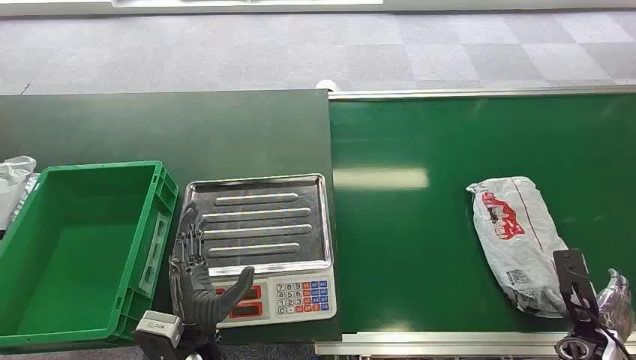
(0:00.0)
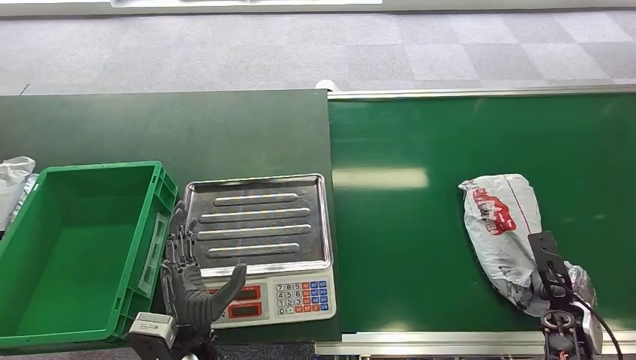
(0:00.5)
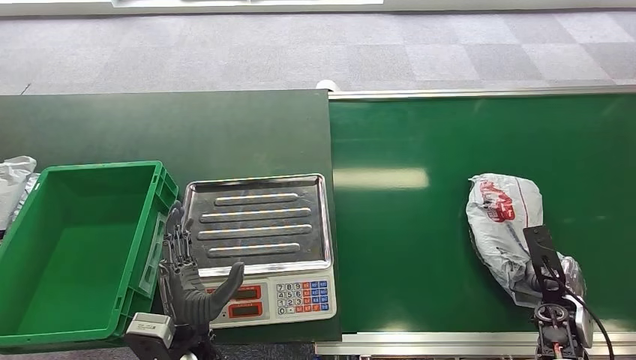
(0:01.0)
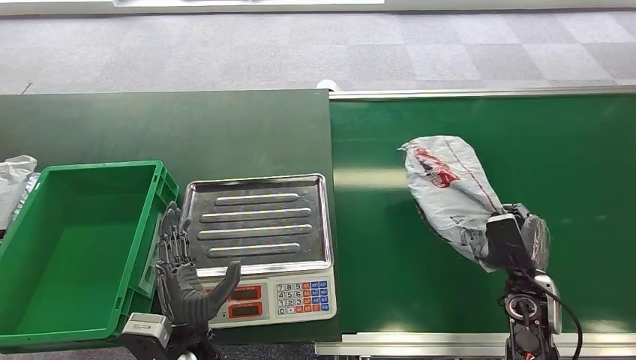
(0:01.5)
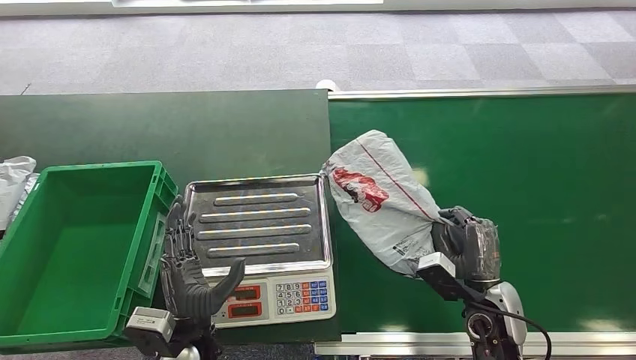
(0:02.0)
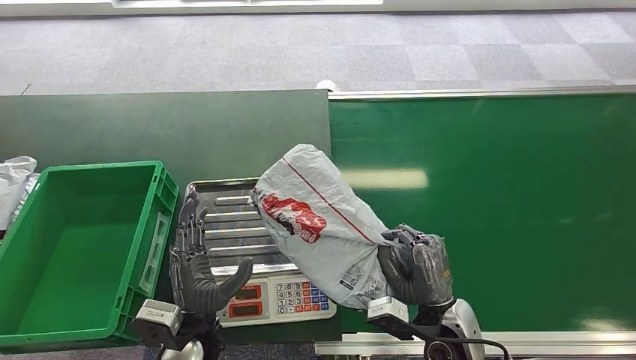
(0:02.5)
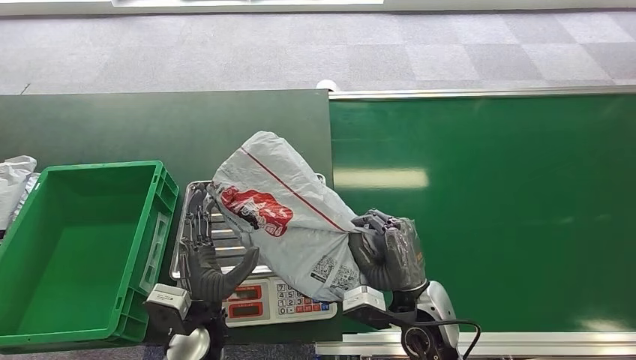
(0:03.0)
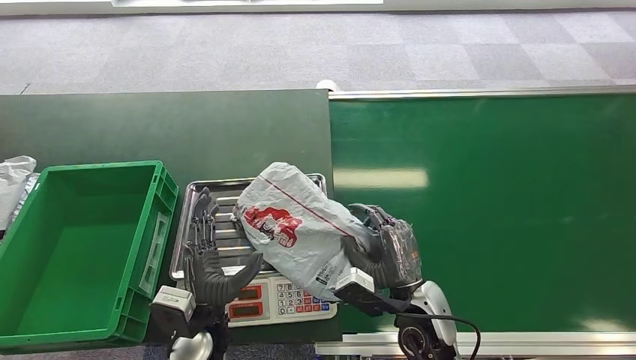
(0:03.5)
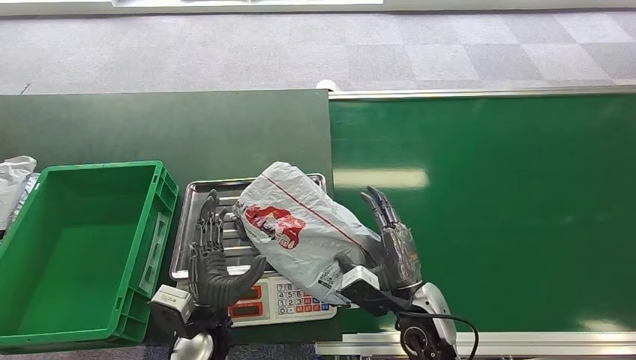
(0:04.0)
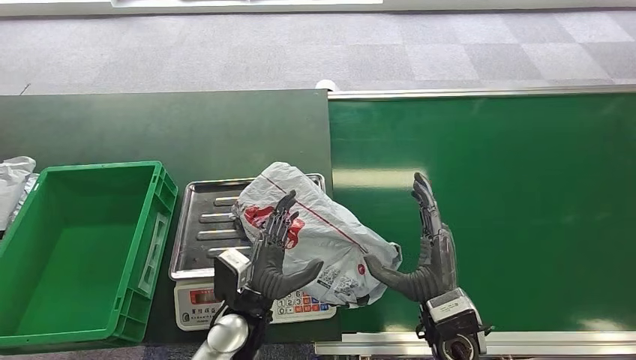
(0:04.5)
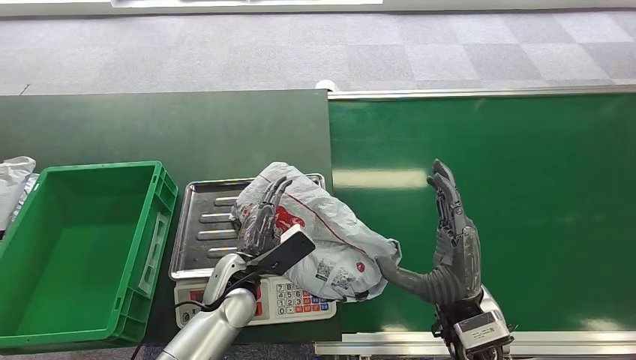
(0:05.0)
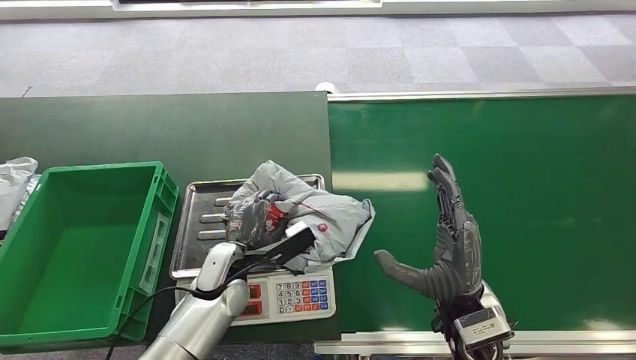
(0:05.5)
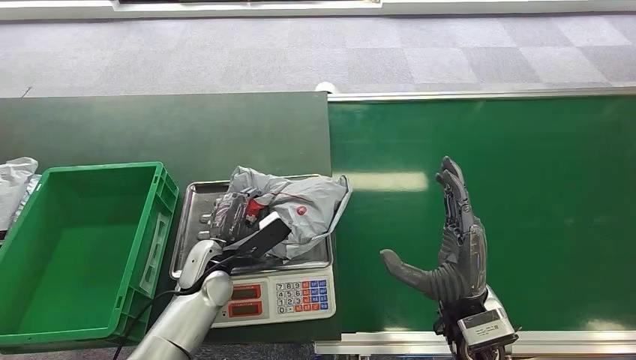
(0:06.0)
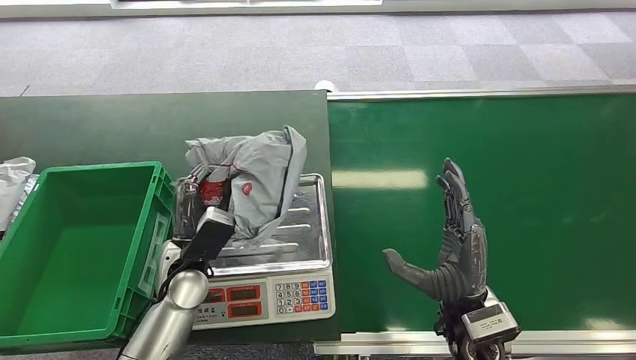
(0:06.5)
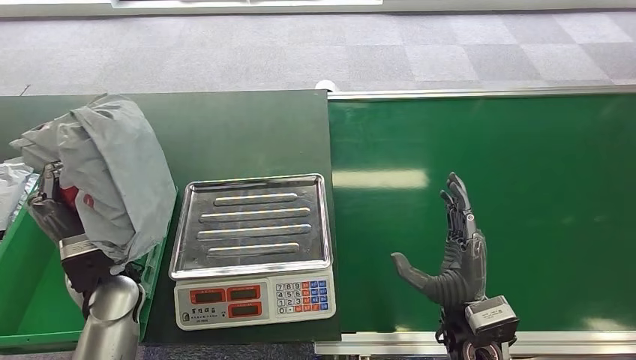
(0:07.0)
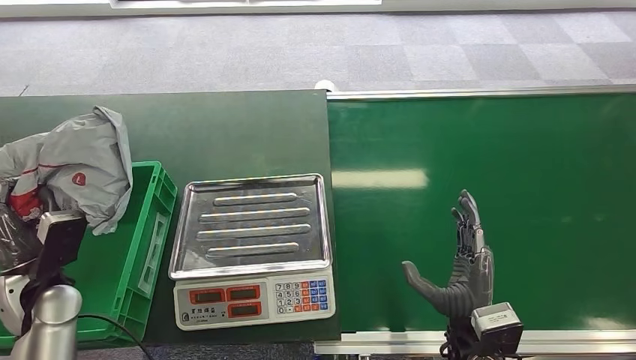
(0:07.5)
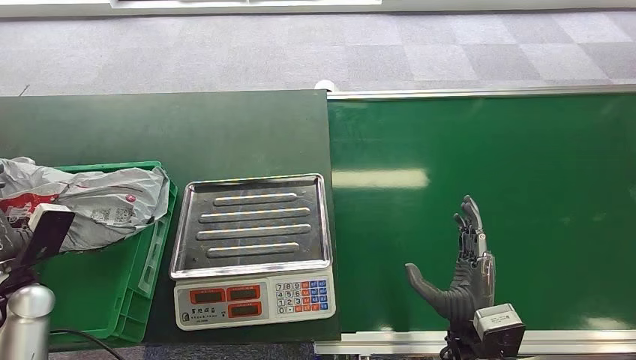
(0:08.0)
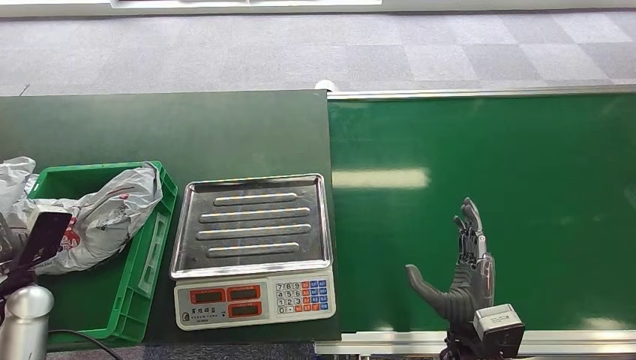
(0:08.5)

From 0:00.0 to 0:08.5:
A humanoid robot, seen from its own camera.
Step, from 0:00.0 to 0:01.5: Pick up the package from the conveyor belt.
Step, from 0:02.5 to 0:03.5: Place the package onto the inbound machine.
Step, from 0:06.0 to 0:06.5: Pick up the package from the inbound machine.
Step, from 0:07.0 to 0:08.5: Place the package into the parcel locker.
From 0:02.0 to 0:04.0: The right hand goes about 15 cm to the left.
From 0:04.0 to 0:06.5: The left hand moves forward and to the left, about 10 cm, while the right hand moves upward, roughly 5 cm.
From 0:06.5 to 0:08.5: The right hand shifts approximately 5 cm downward; the left hand travels to the left by some 30 cm.

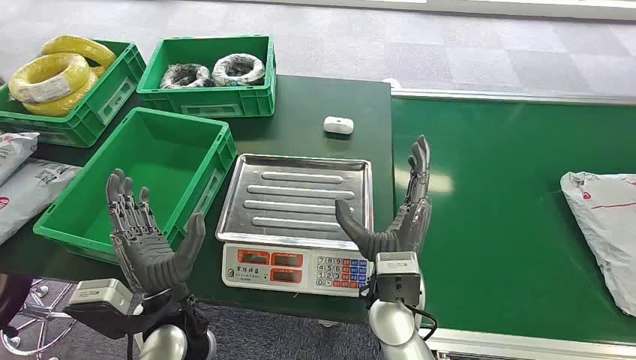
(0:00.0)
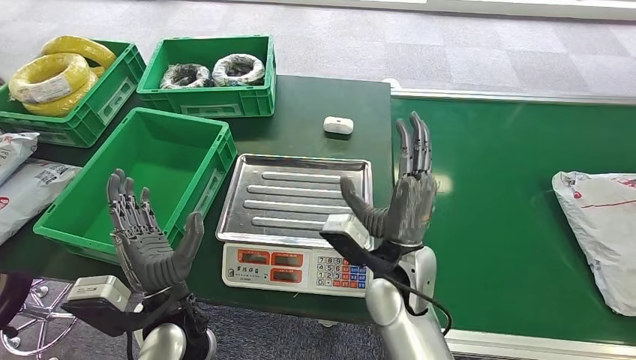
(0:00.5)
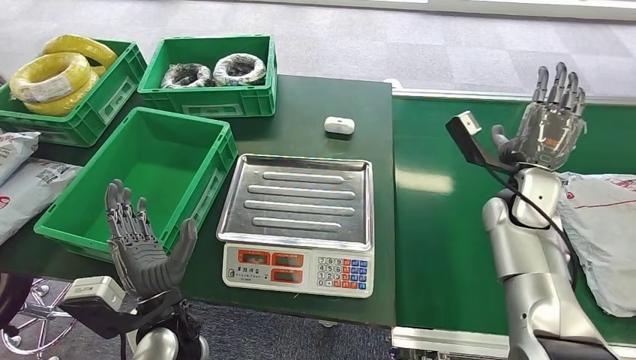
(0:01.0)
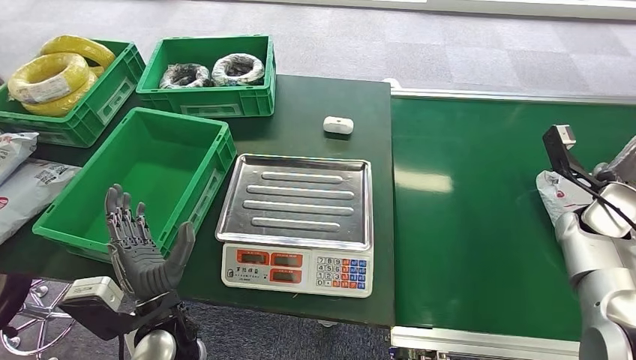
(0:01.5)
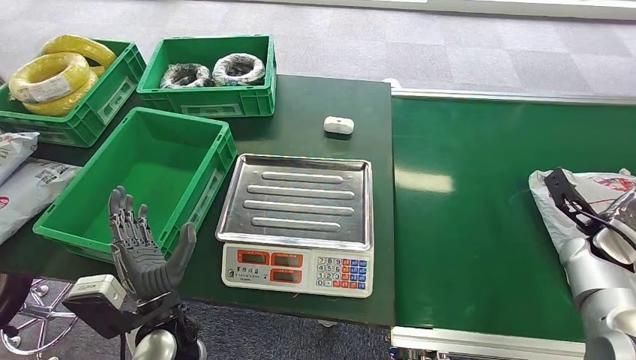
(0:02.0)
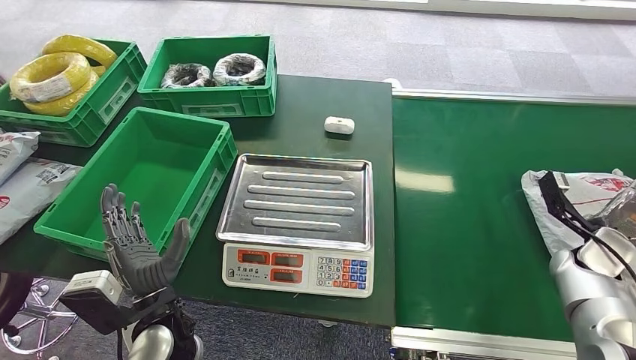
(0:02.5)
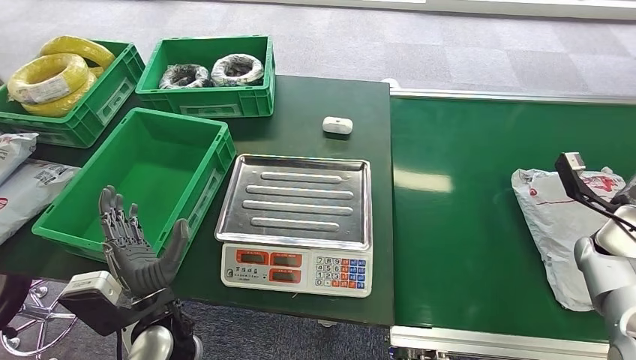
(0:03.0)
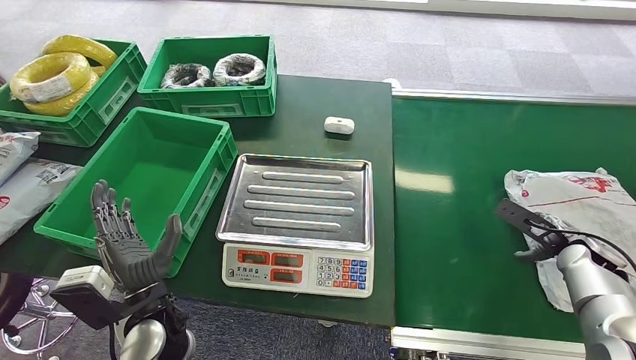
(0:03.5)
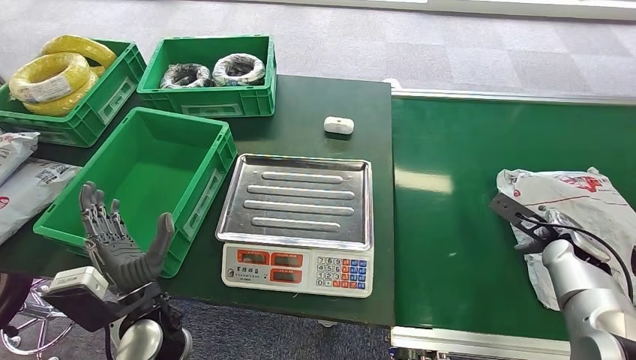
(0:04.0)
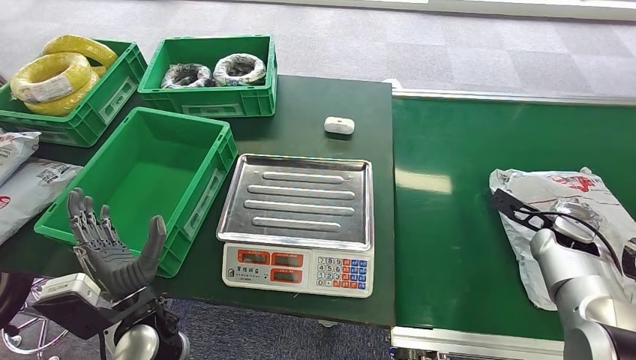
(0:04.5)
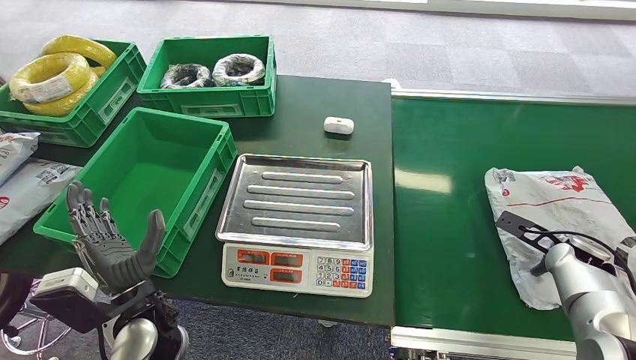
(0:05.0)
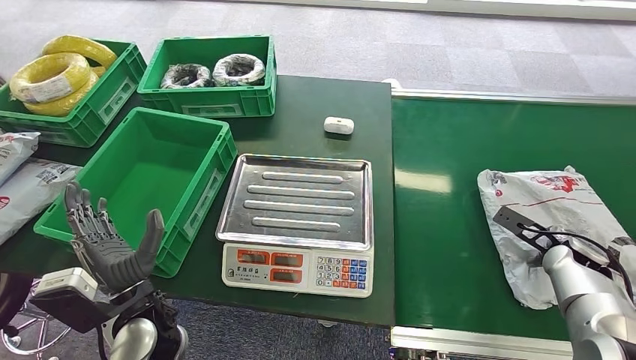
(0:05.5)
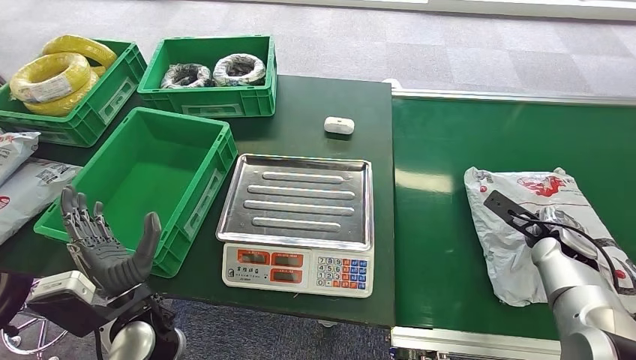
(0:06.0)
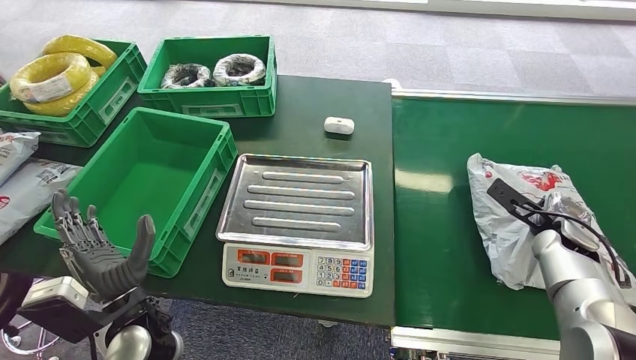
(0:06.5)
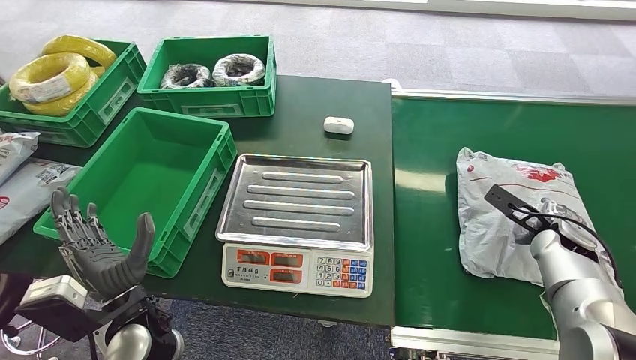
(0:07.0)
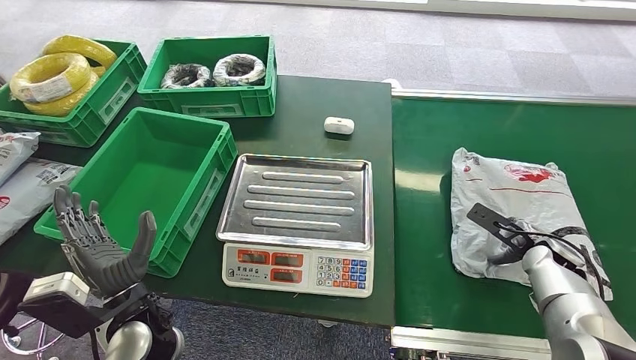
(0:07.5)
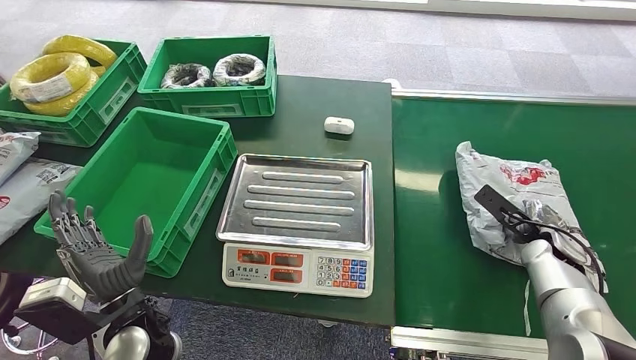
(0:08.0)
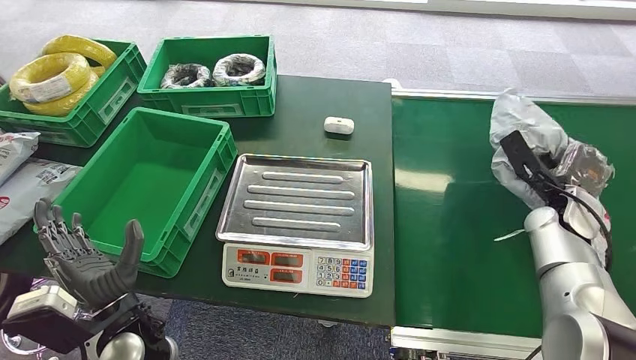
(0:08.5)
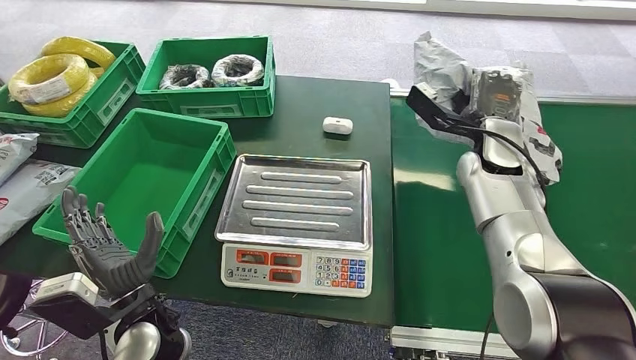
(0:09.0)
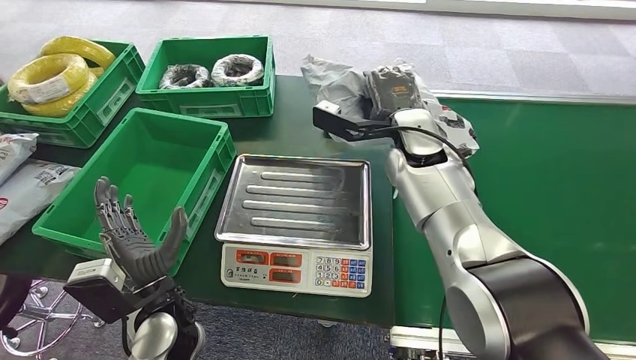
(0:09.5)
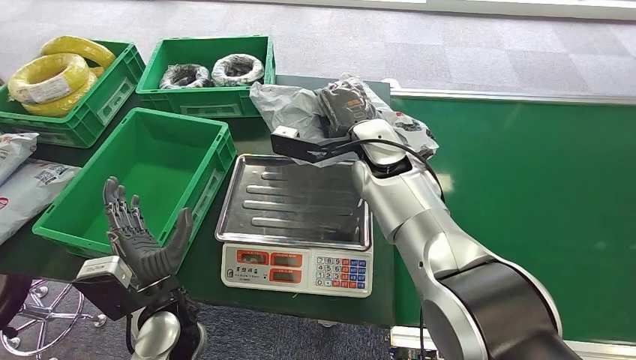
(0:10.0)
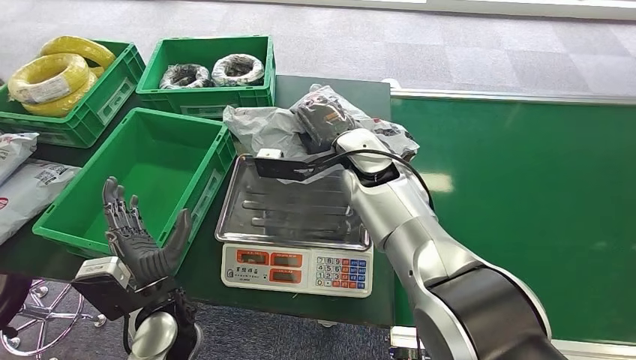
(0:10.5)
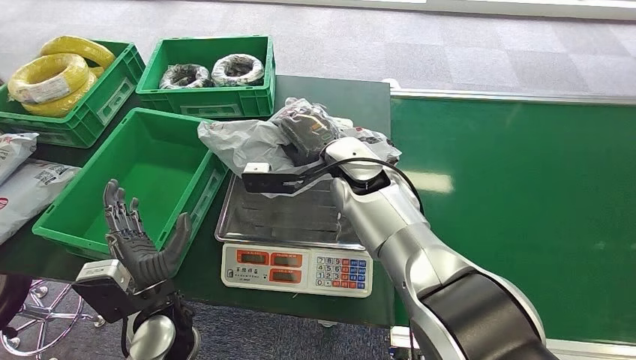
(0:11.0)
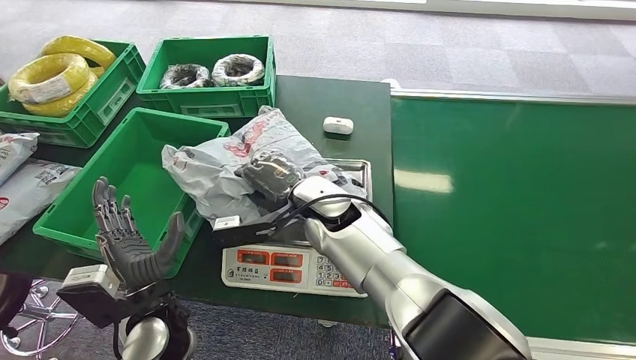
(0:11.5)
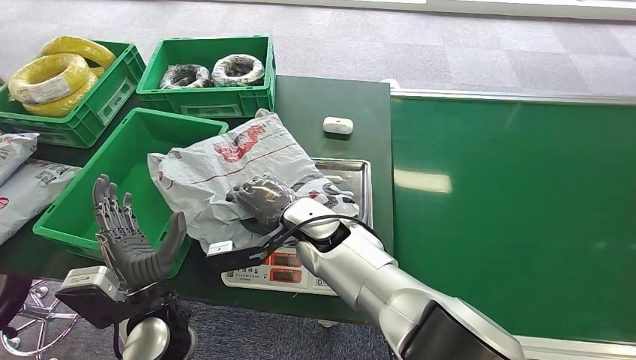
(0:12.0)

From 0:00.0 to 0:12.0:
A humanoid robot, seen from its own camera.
Step, from 0:00.0 to 0:09.0: Pick up the package from the conveyor belt.
From 0:06.0 to 0:08.0: The hands move only a little.
